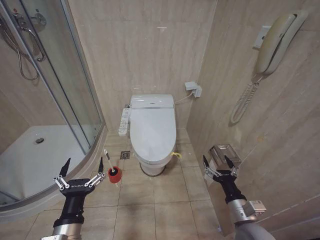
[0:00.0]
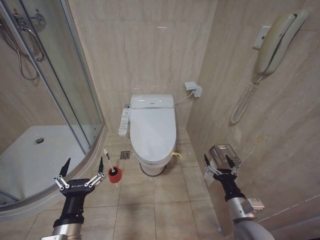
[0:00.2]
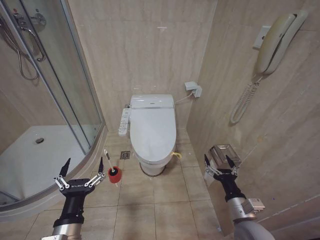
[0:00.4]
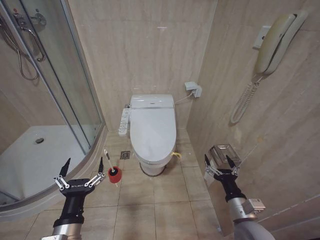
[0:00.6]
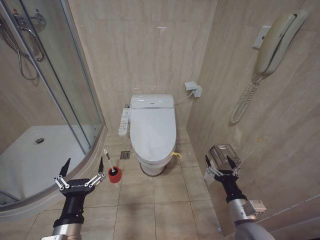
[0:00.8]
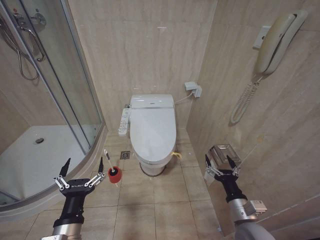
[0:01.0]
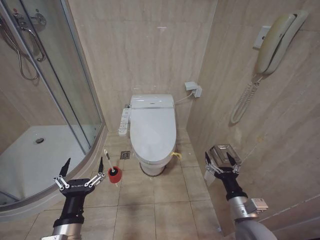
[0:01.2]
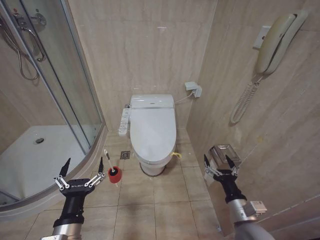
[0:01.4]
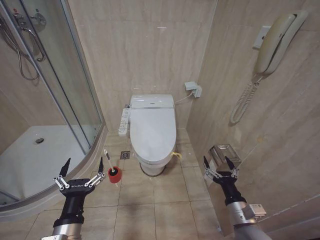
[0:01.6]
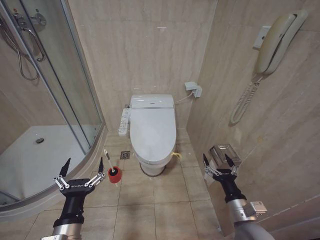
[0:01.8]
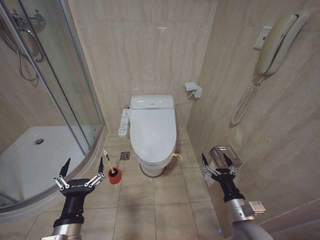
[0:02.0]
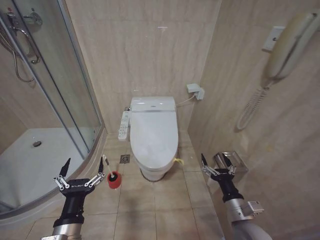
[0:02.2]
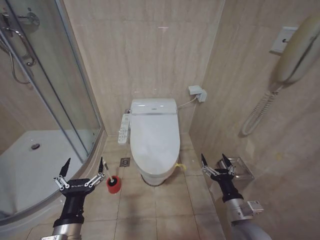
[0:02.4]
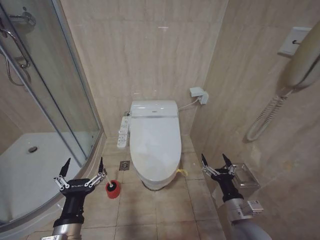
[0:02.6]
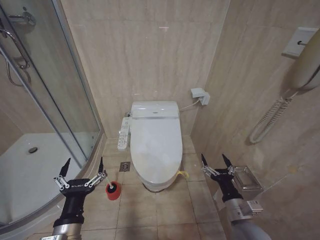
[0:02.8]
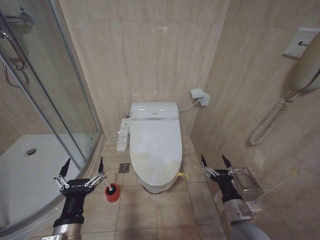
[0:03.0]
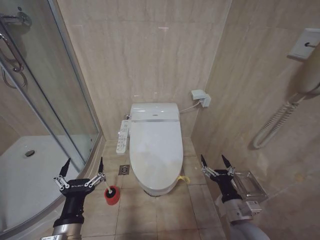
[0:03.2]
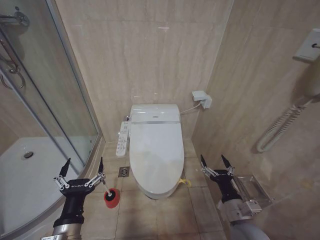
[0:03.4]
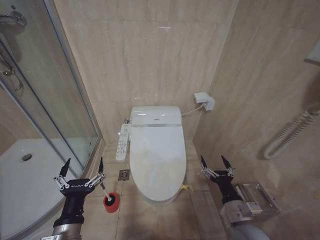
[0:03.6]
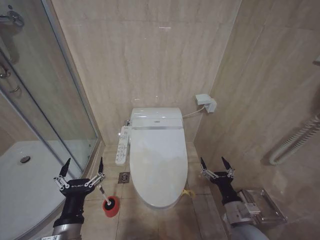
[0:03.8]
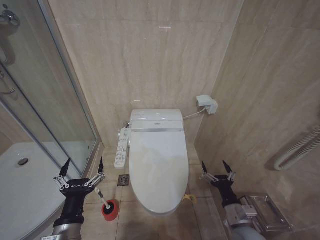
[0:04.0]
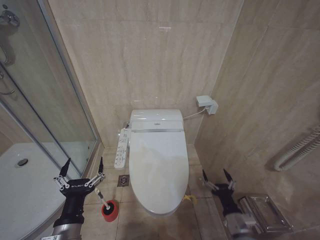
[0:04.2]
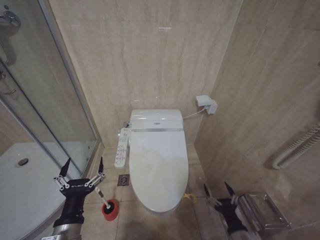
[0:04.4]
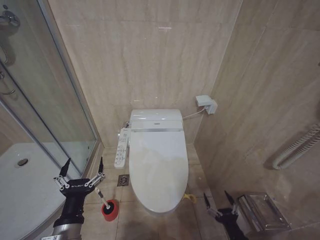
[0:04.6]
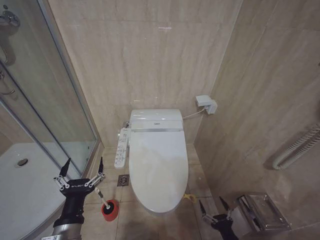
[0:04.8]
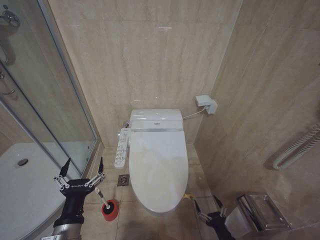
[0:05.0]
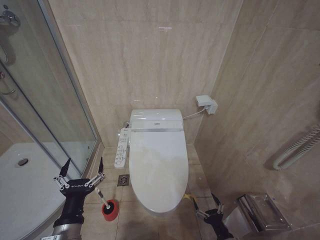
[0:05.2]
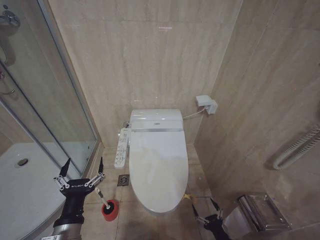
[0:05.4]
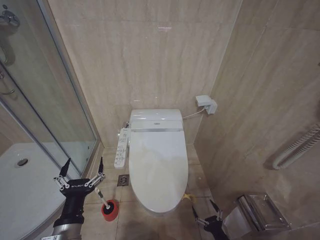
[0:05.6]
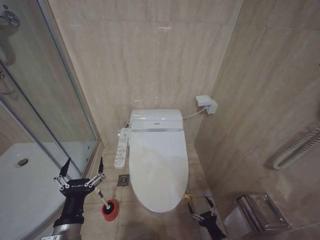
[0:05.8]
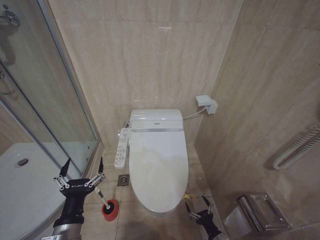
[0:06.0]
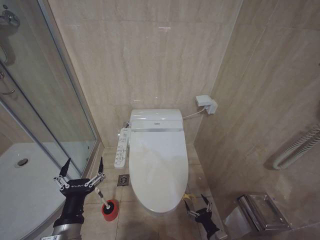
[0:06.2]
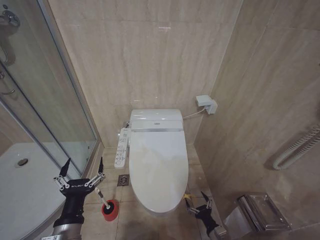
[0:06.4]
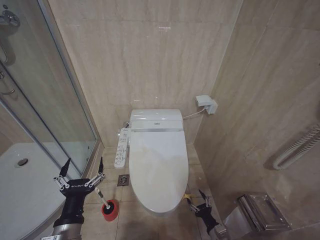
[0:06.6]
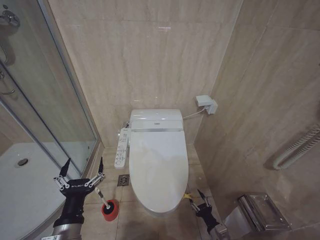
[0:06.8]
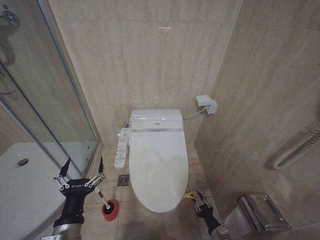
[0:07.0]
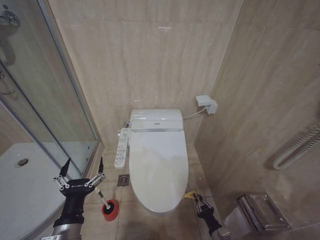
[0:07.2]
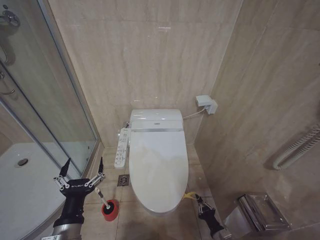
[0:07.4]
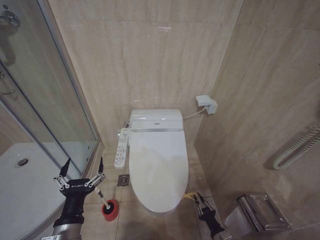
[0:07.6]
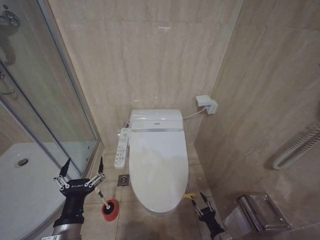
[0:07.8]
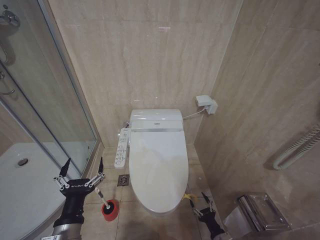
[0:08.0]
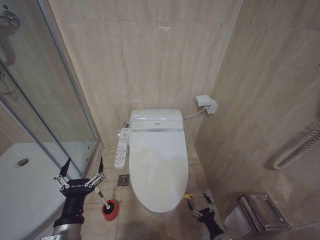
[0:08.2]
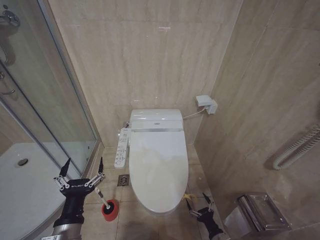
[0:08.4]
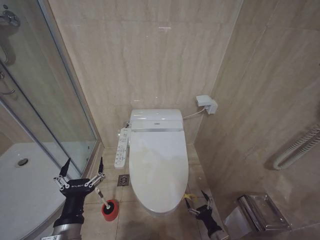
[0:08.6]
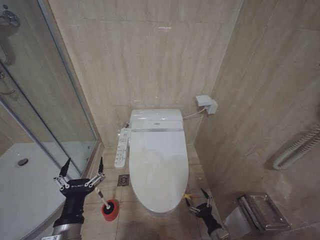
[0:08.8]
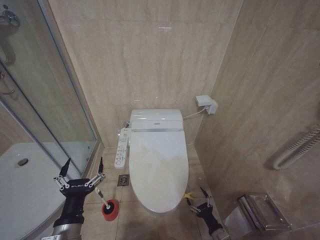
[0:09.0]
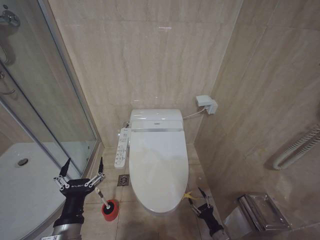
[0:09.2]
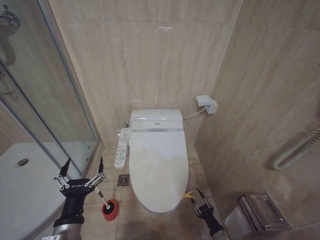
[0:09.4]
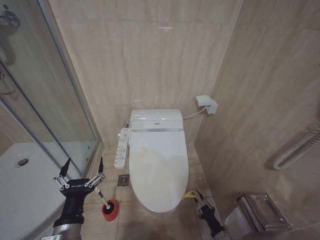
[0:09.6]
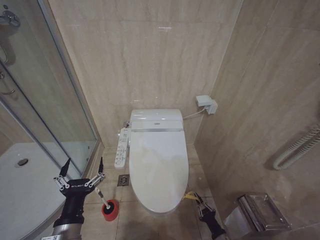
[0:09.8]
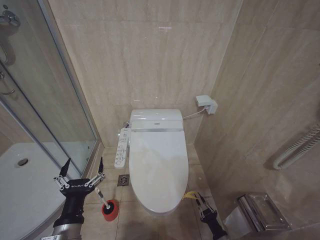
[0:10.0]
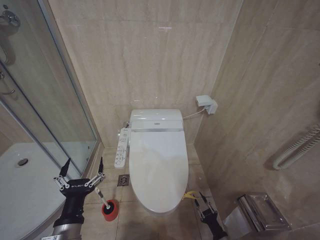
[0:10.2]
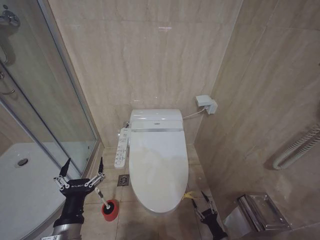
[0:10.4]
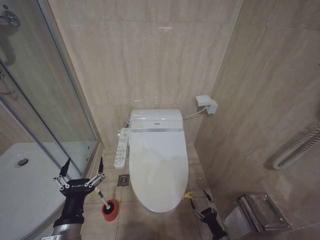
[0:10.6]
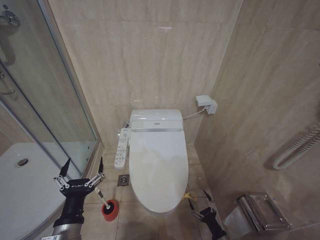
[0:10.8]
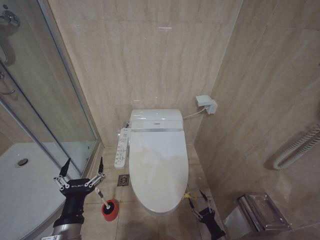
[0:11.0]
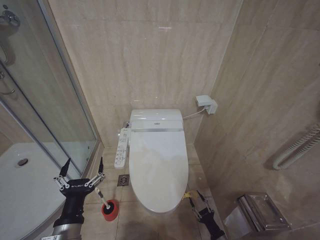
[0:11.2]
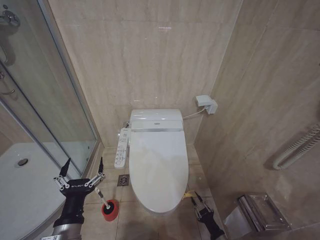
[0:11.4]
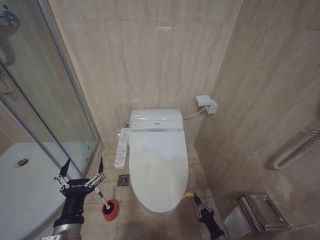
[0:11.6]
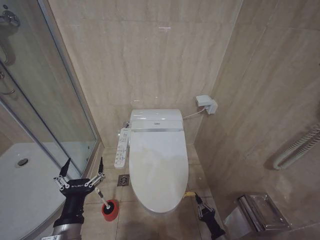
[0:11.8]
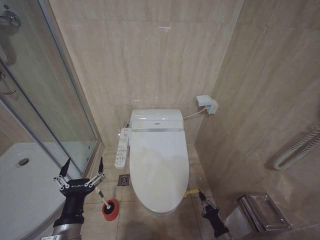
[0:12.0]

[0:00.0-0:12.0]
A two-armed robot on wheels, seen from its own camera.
Task of the whole recording: Open the toilet lid, clean the toilet bowl with a toilet brush, close the toilet lid, and flush.
0:01.6 to 0:03.0: Neither gripper changes place.
0:03.0 to 0:04.4: The right gripper is displaced downward and backward by approximately 10 cm.
0:04.4 to 0:06.0: The right gripper is displaced downward by about 10 cm.

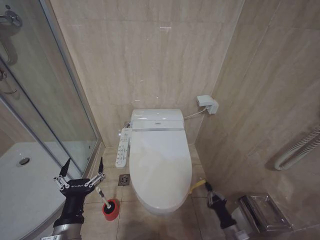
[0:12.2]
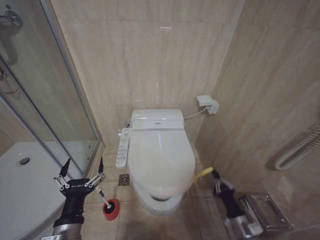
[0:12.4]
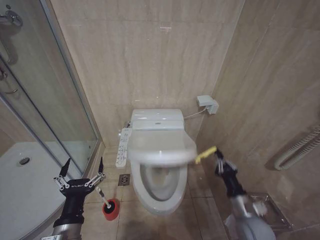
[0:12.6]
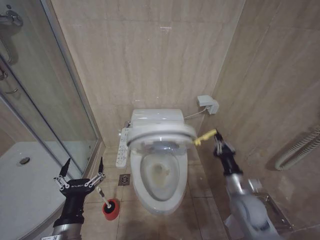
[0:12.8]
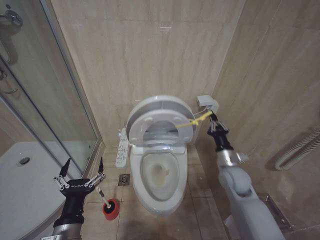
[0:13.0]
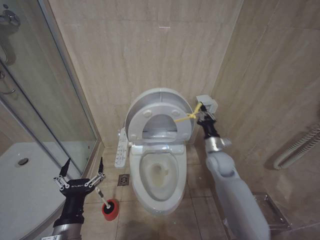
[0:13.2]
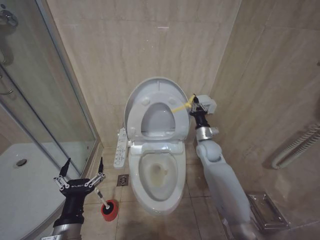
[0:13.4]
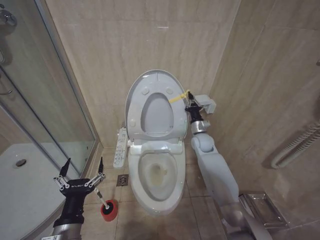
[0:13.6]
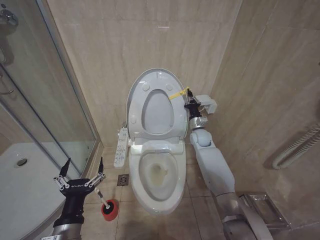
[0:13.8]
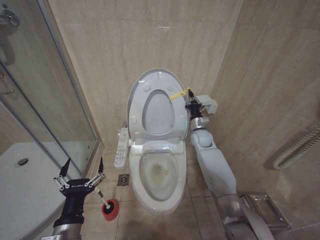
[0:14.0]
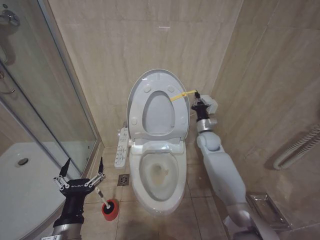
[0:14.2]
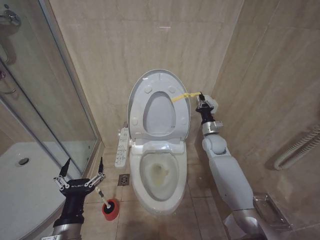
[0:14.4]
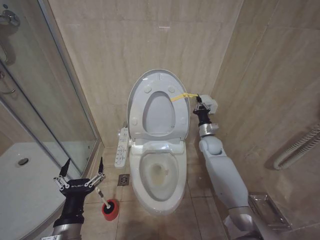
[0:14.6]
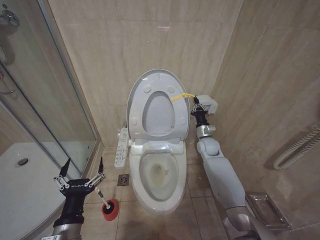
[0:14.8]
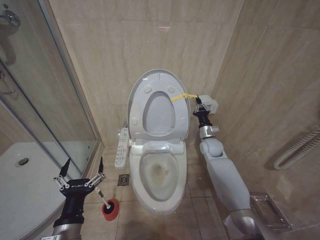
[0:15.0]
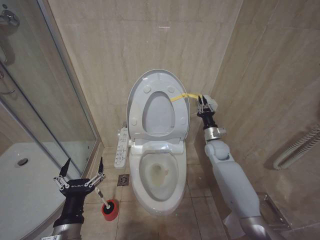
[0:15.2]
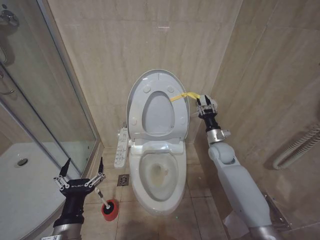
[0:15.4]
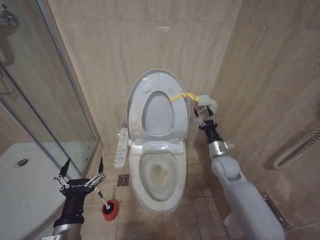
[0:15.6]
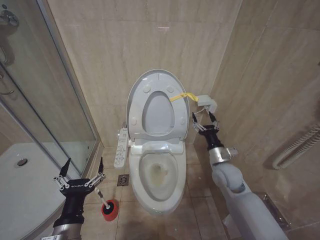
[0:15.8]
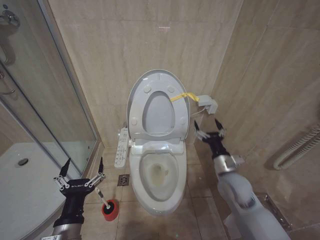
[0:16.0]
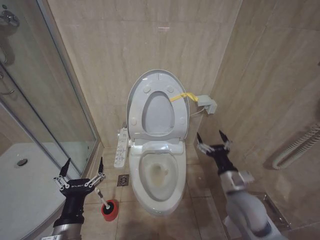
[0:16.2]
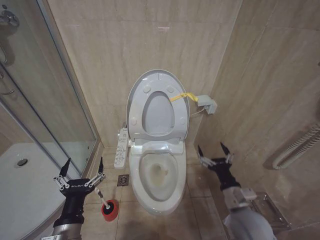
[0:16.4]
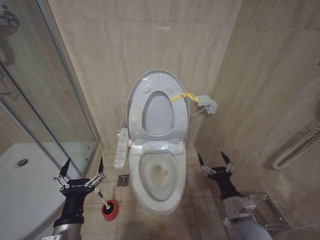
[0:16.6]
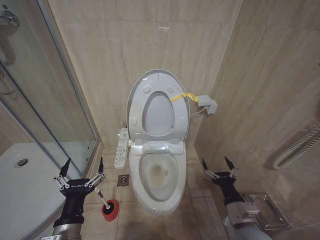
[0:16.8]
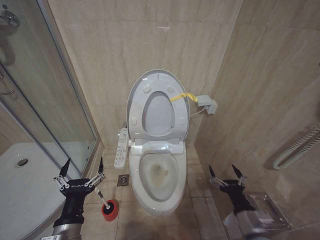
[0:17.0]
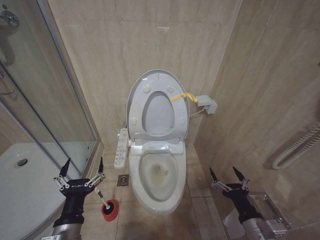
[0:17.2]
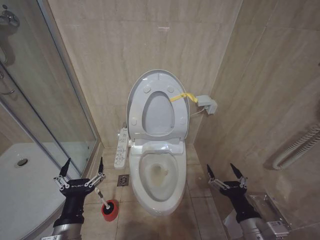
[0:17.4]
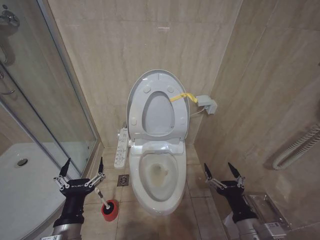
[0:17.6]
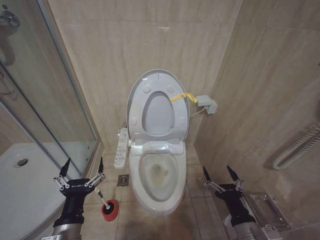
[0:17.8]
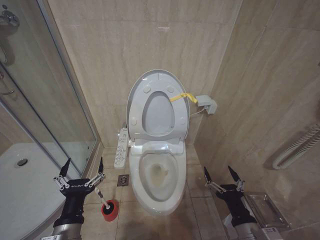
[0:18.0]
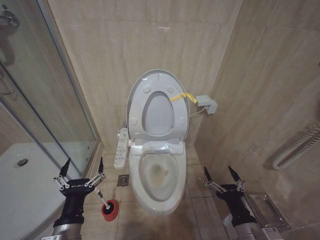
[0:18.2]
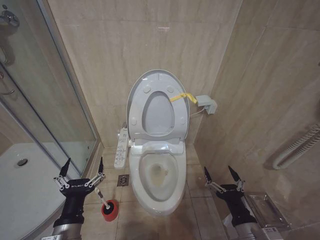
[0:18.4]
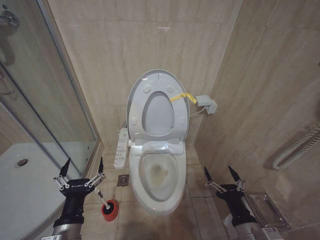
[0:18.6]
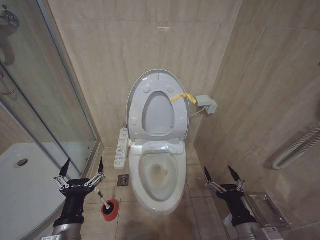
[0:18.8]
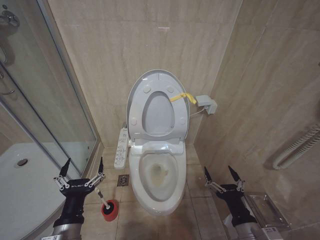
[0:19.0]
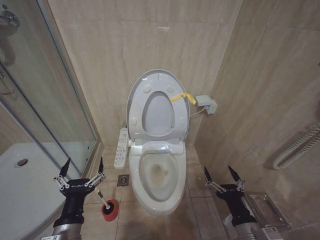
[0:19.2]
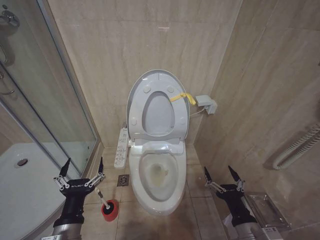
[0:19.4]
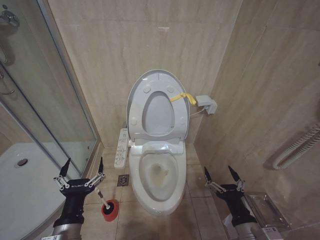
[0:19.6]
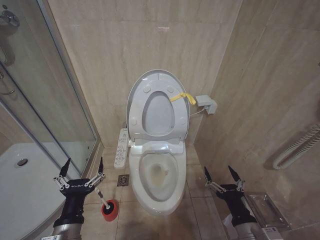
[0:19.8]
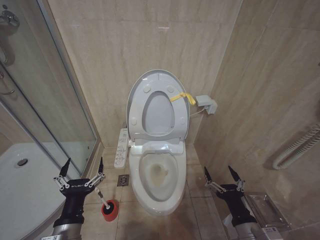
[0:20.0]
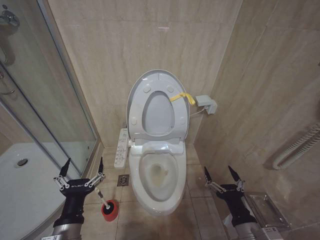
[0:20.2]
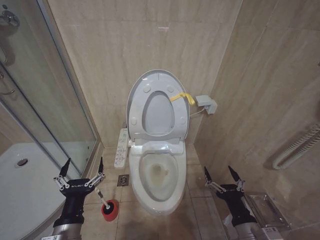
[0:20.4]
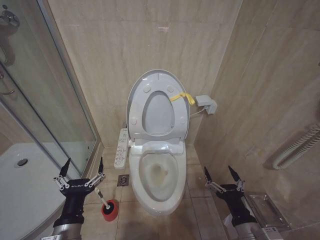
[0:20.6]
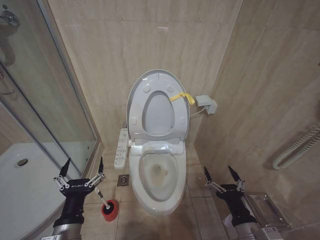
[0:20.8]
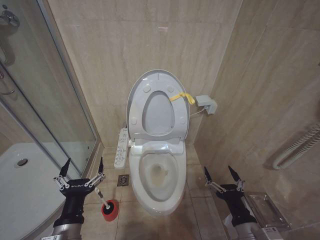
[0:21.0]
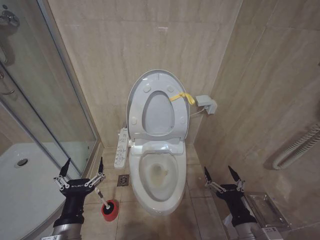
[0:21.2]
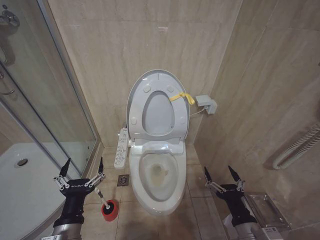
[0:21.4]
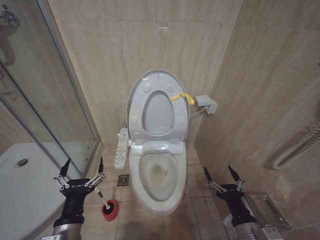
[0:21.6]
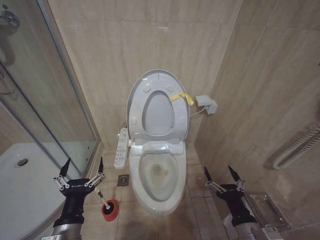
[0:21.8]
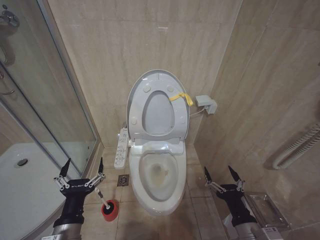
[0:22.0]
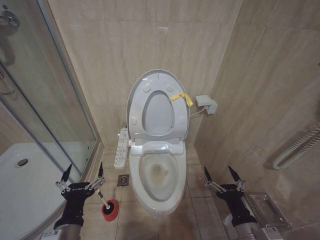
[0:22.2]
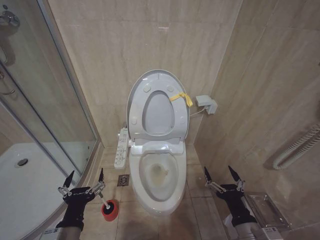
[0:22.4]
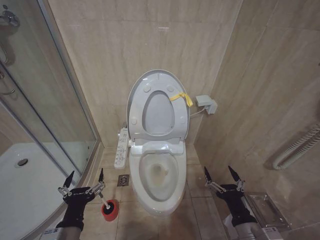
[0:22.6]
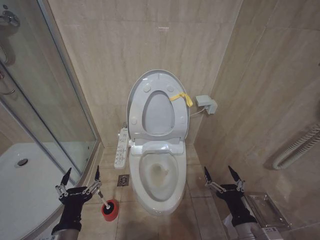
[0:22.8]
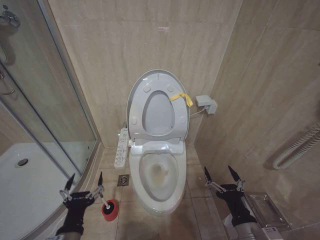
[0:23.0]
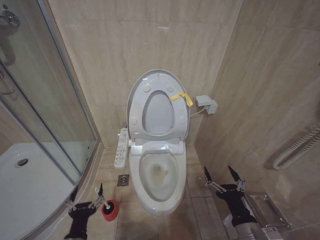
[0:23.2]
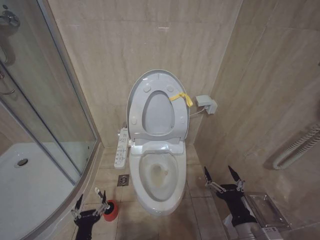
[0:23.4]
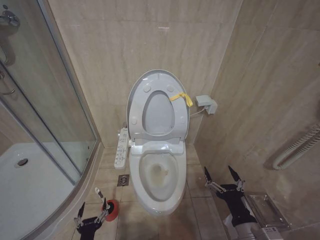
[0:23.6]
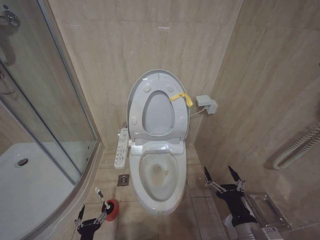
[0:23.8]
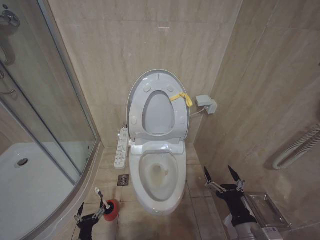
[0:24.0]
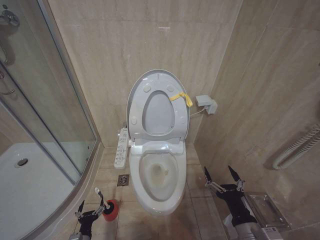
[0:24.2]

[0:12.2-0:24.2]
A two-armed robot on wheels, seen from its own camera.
Task of the whole recording: Open the toilet lid, clean the toilet bowl with a toilet brush, close the toilet lid, and flush.
0:12.2 to 0:13.8: The right gripper travels forward and upward by roughly 50 cm.
0:13.8 to 0:15.2: The right gripper heads to the right and backward, covering roughly 10 cm.
0:15.2 to 0:16.6: The right gripper travels backward by about 30 cm, and opens up.
0:16.6 to 0:18.2: The right gripper goes some 10 cm backward.
0:18.2 to 0:21.2: The two grippers keep their place.
0:21.2 to 0:22.6: The grippers move only a little.
0:22.6 to 0:24.2: The left gripper moves downward, some 30 cm.
